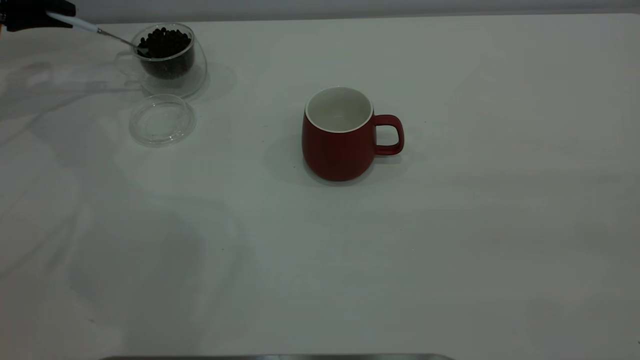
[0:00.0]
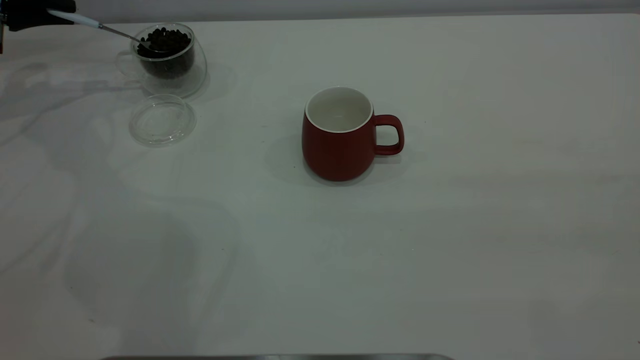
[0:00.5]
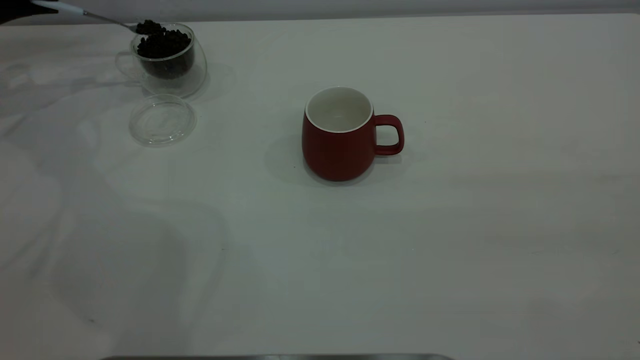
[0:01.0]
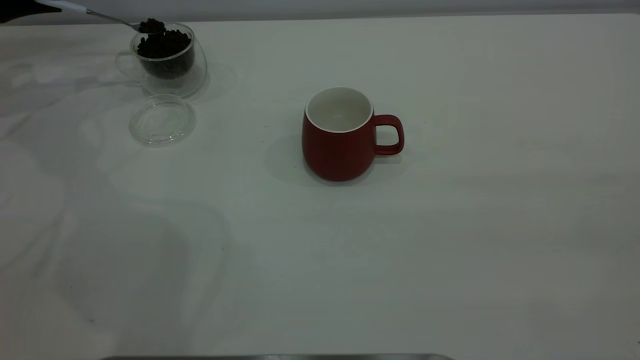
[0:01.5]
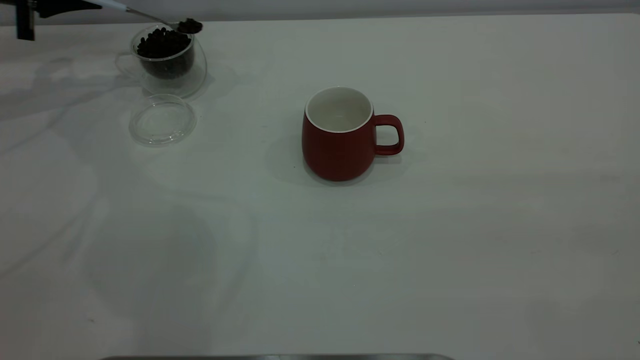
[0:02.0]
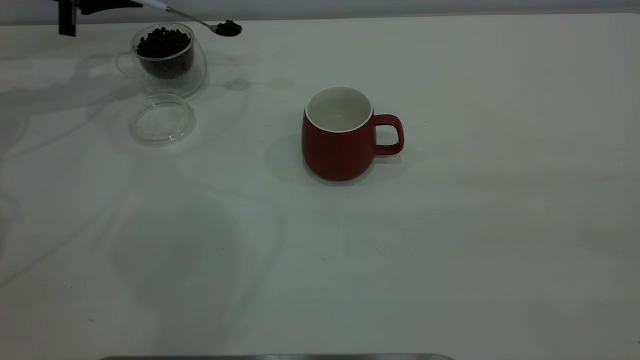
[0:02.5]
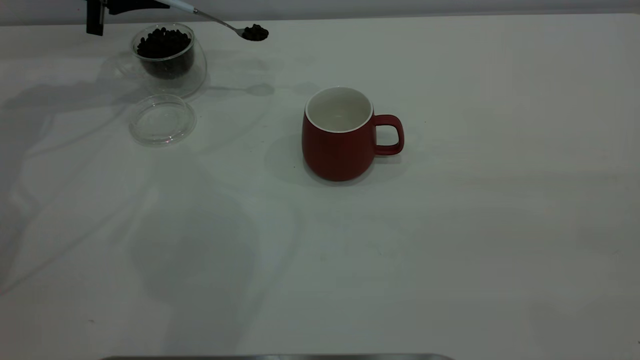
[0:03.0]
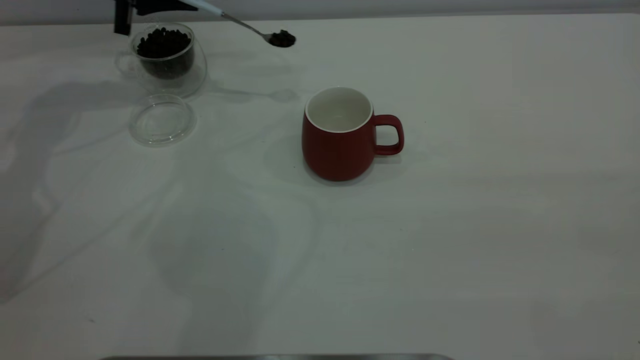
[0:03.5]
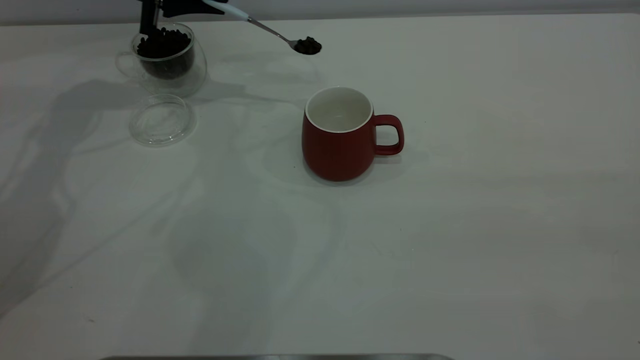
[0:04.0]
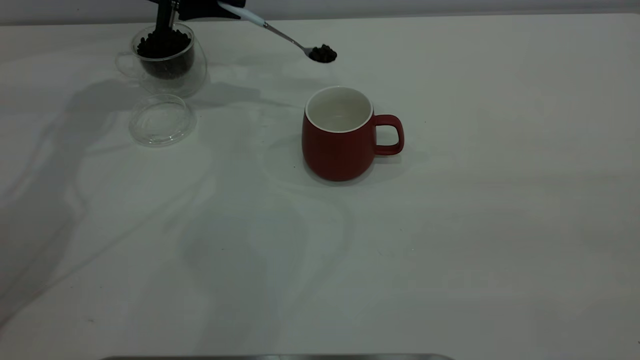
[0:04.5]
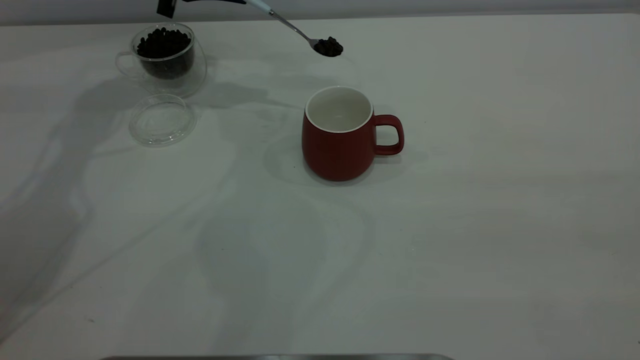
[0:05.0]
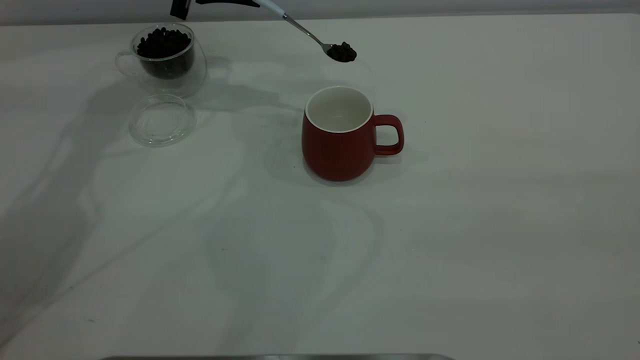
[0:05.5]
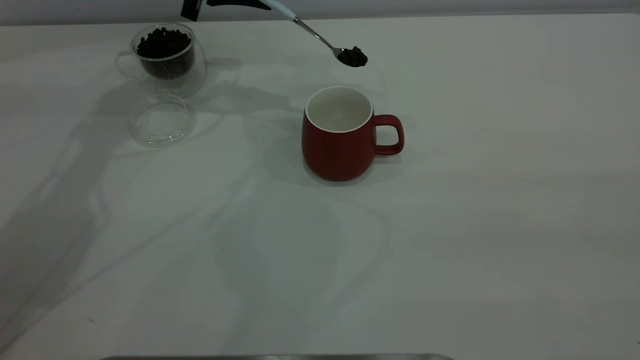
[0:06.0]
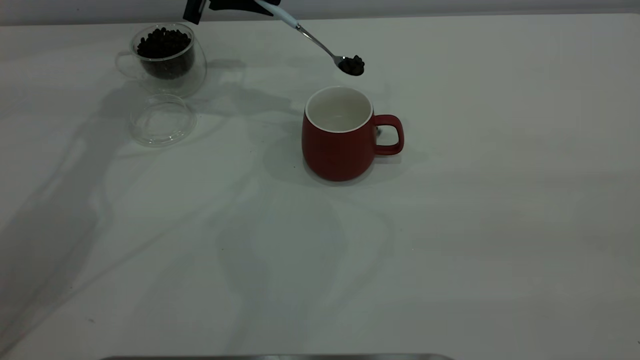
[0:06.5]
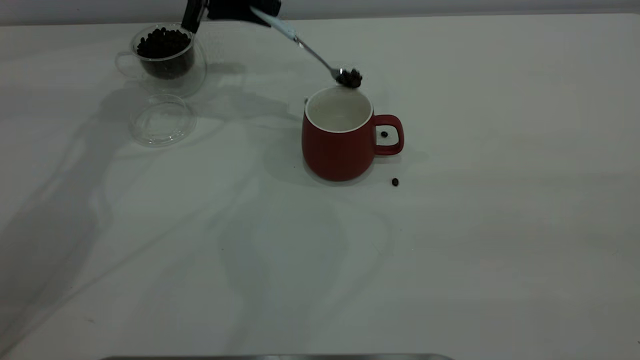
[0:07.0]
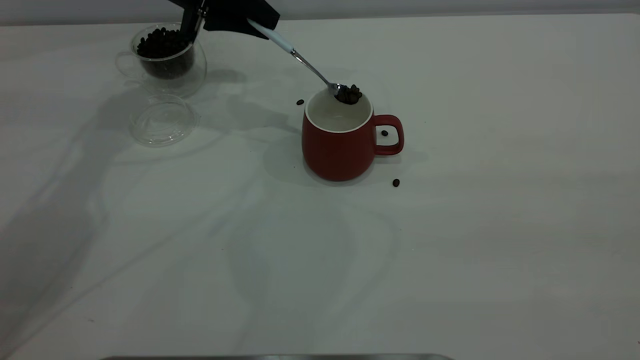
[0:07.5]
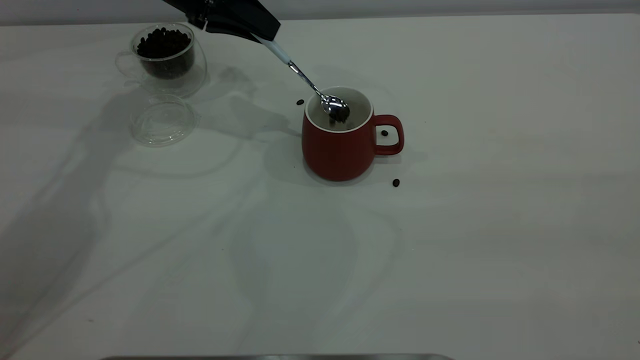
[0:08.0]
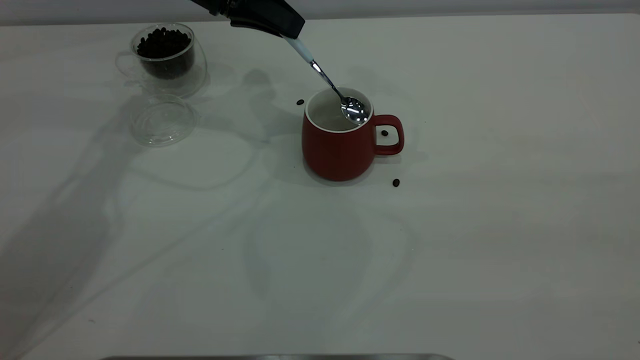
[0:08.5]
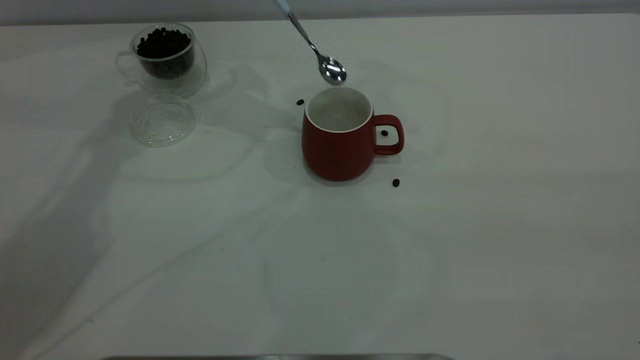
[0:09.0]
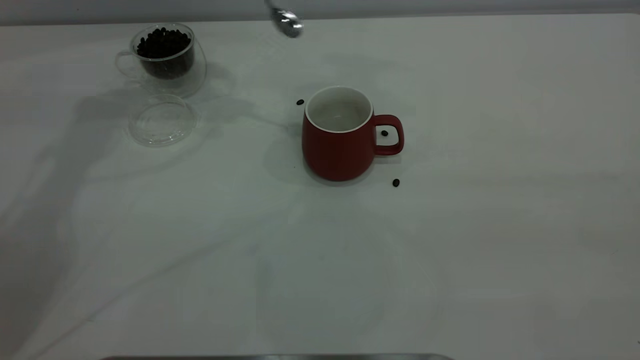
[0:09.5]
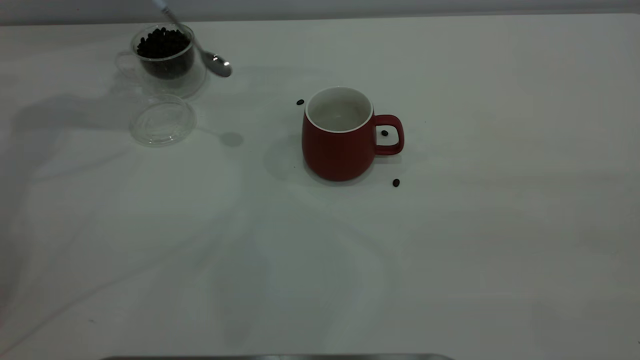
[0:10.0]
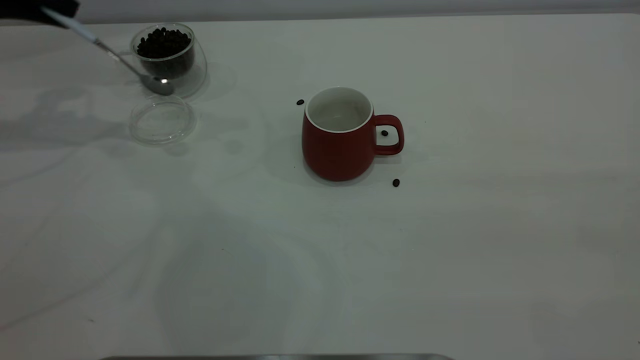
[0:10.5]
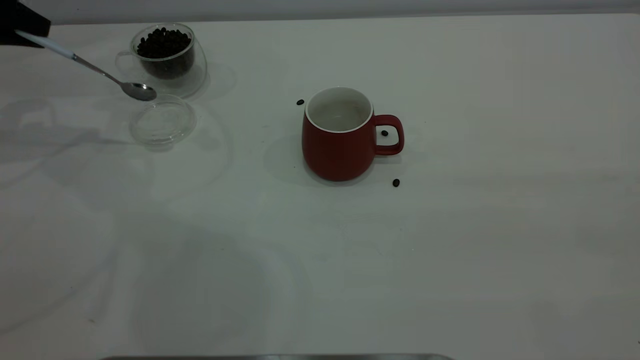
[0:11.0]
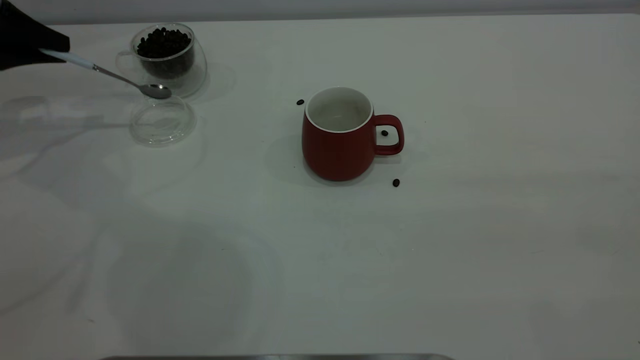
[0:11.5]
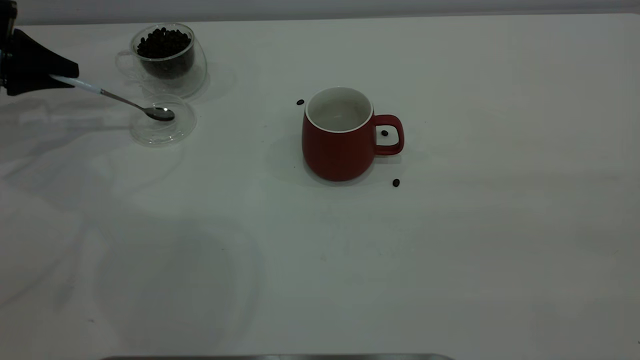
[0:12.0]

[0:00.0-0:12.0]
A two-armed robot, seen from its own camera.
Task of the whole recording: the right gripper place the red cup in the center of the table, the left gripper take the blue spoon from the cup lid and scoop out the coffee beans from the coffee cup and put them into the red cup, the left gripper put the spoon back into the cup lid.
Step, 0:00.0 to 0:08.5: Scoop a spoonful of beans into the cup.
0:00.0 to 0:02.0: There are only small adjustments of the grippers.
0:02.0 to 0:04.0: The left gripper travels to the right by some 15 cm.
0:04.0 to 0:06.0: The left gripper heads to the right, covering some 5 cm.
0:08.0 to 0:10.0: The left gripper travels to the left and upward by about 15 cm.
0:10.0 to 0:12.0: The left gripper heads downward and to the left, covering approximately 20 cm.

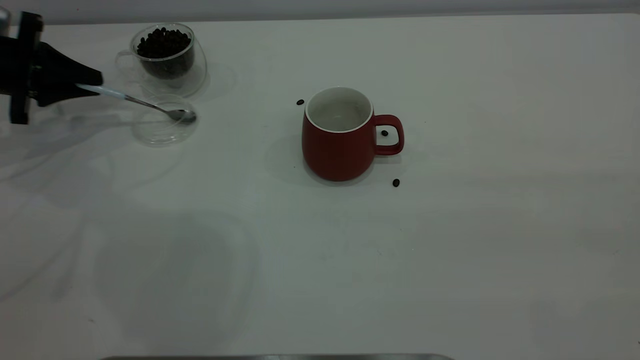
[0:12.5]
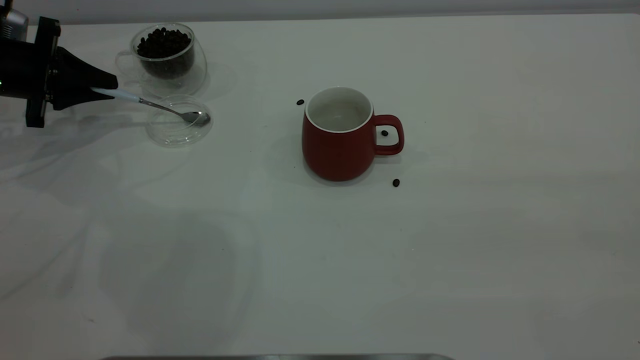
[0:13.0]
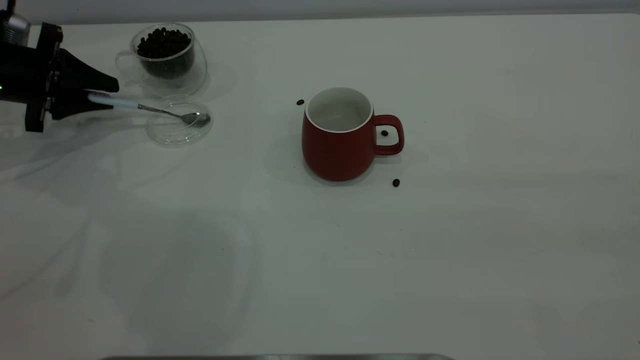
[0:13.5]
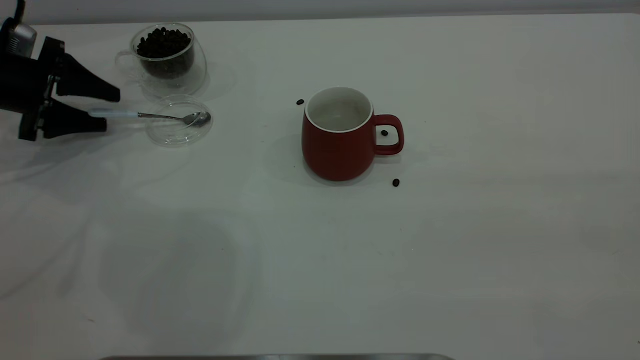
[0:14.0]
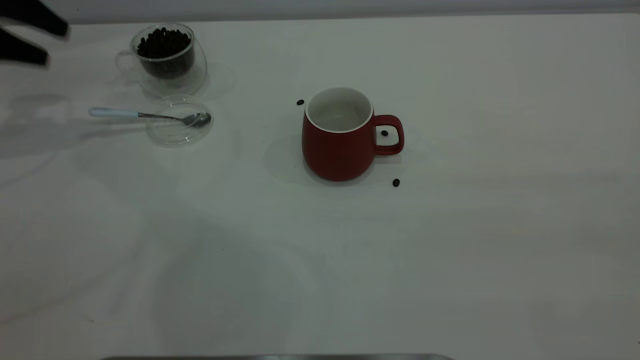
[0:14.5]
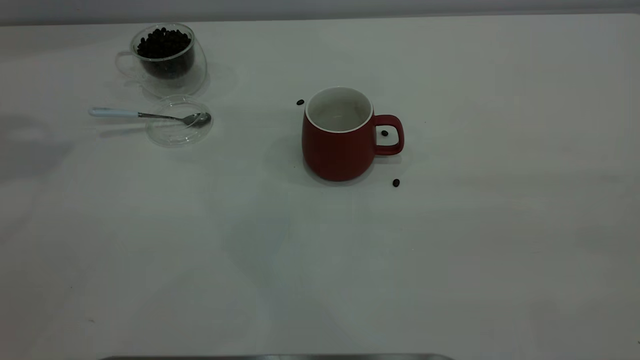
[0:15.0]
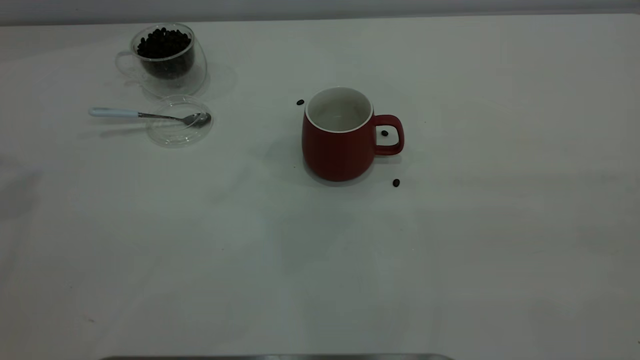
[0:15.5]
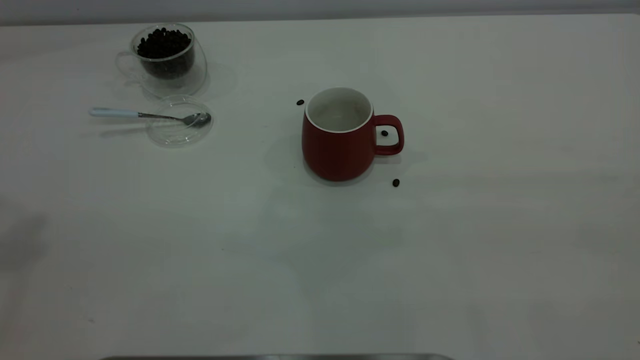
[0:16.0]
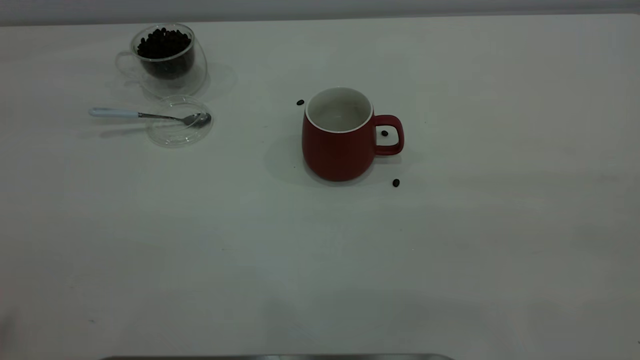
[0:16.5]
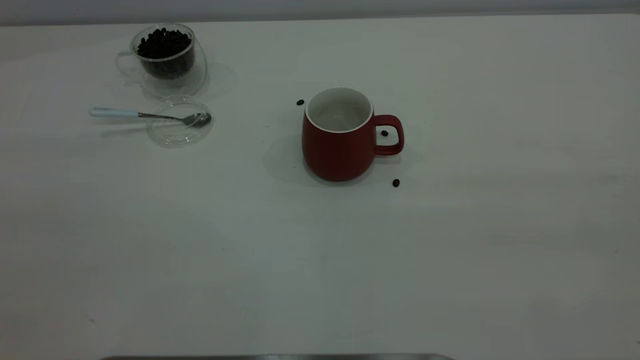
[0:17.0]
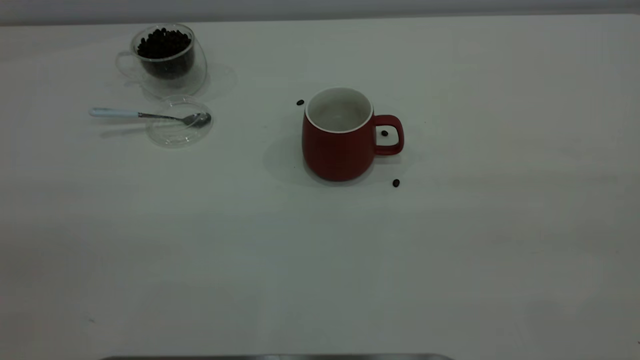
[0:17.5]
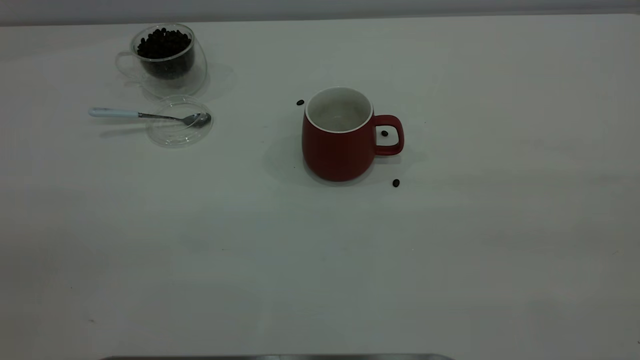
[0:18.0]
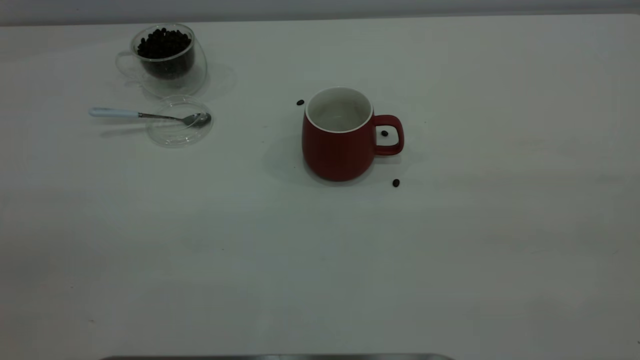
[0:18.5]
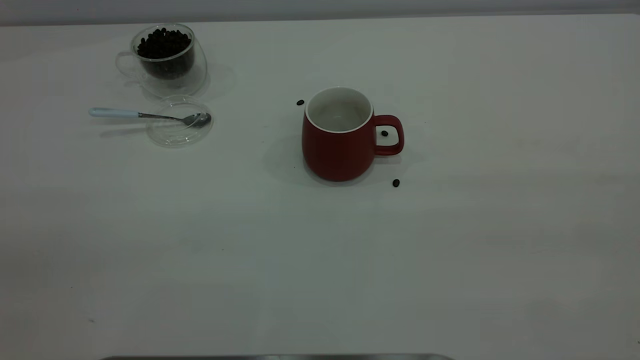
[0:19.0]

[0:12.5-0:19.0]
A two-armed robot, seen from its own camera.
Task of the whole recording: the right gripper place the red cup in the center of the table, the left gripper take the blue spoon from the cup lid and scoop out the coffee beans from the coffee cup and put them into the red cup, the left gripper put the spoon back into the cup lid.
0:12.5 to 0:14.5: The left gripper travels upward by some 10 cm, and opens.
0:14.5 to 0:17.0: The left gripper heads backward and upward, covering roughly 40 cm.

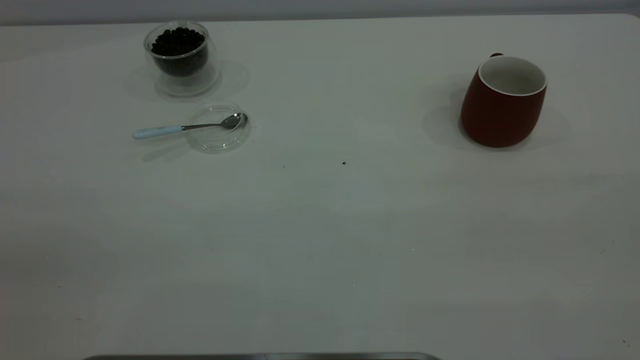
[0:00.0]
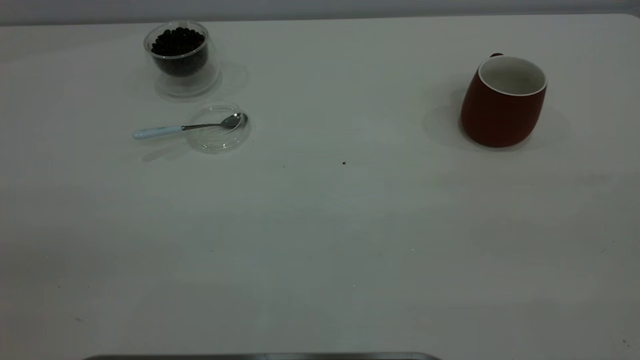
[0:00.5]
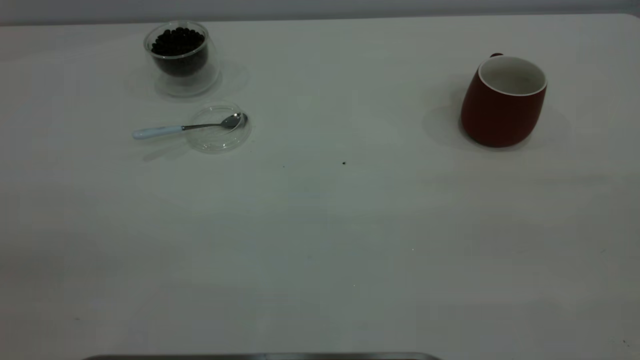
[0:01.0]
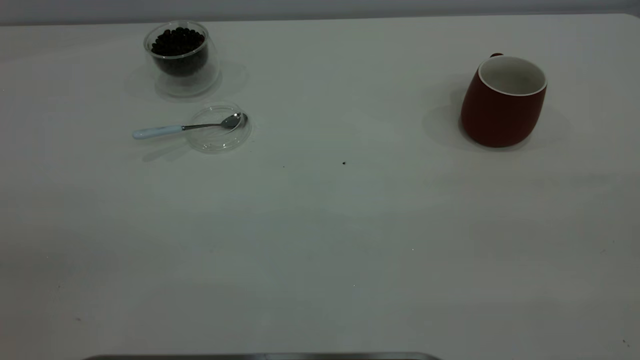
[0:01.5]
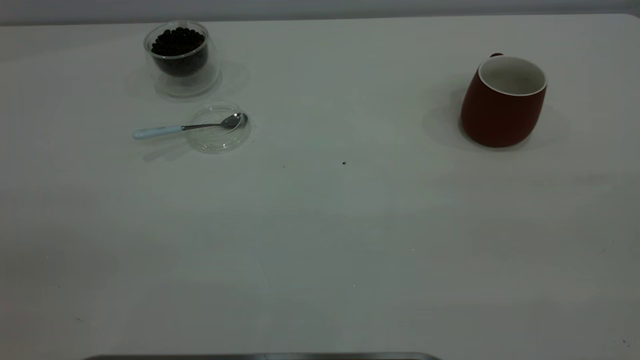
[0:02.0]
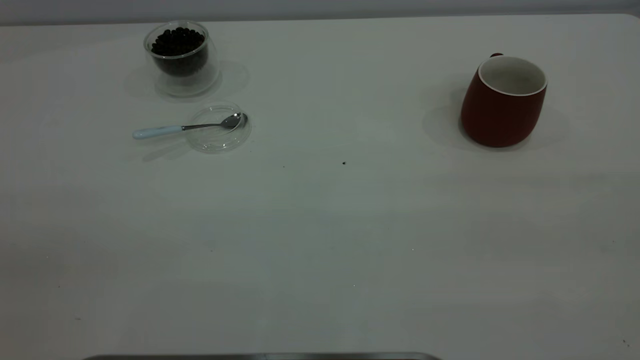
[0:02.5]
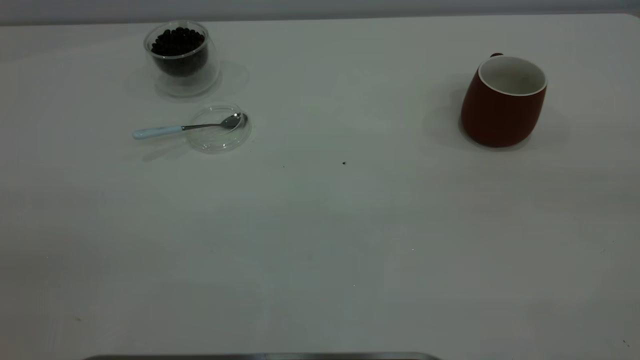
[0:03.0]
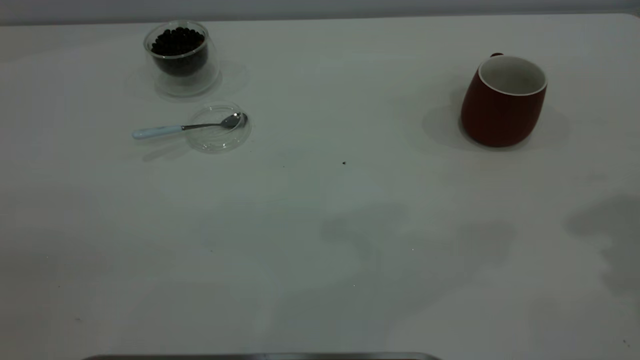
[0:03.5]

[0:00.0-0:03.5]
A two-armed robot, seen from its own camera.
Task of the whole recording: the right gripper place the red cup in the center of the table, the left gripper take the blue spoon from the cup lid and scoop out the coffee beans from the coffee cup and put them into the red cup, the left gripper put the spoon back into the cup lid.
0:00.0 to 0:02.0: Both grippers stay about where they are.
